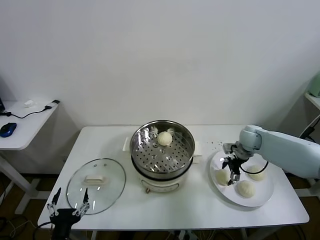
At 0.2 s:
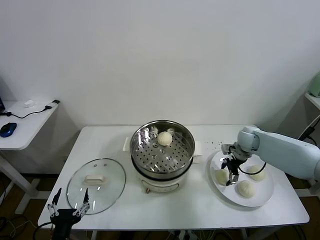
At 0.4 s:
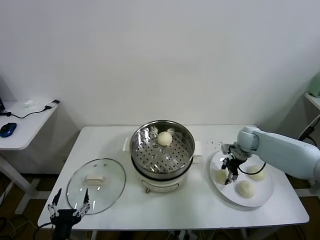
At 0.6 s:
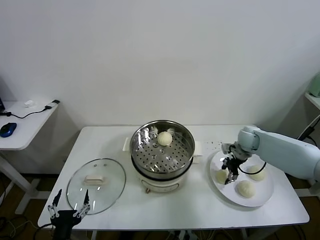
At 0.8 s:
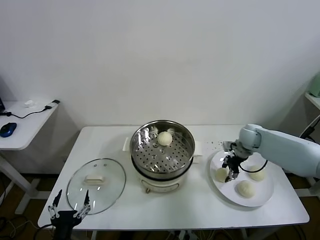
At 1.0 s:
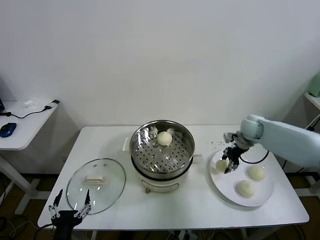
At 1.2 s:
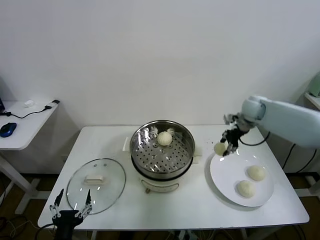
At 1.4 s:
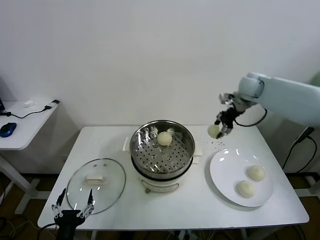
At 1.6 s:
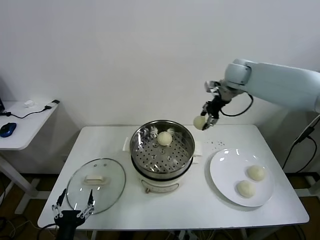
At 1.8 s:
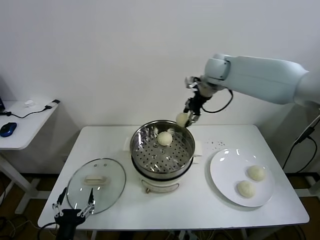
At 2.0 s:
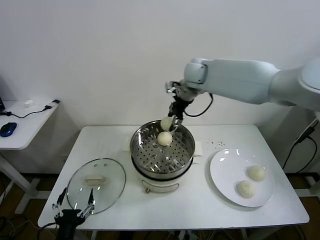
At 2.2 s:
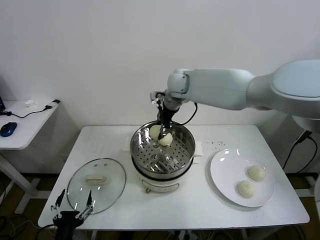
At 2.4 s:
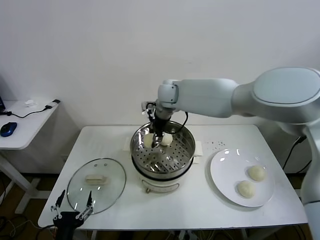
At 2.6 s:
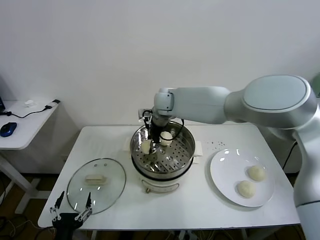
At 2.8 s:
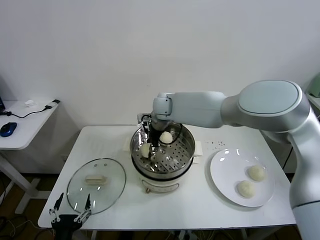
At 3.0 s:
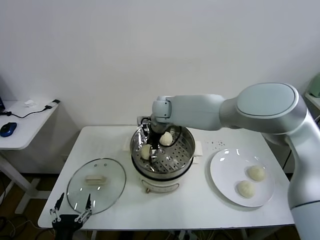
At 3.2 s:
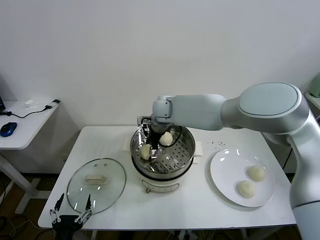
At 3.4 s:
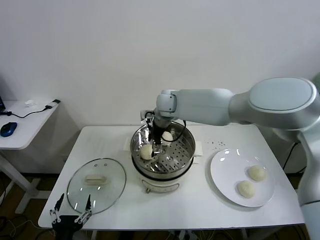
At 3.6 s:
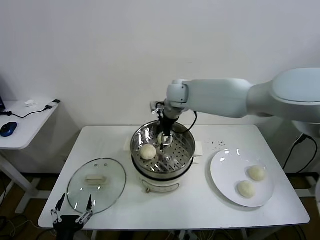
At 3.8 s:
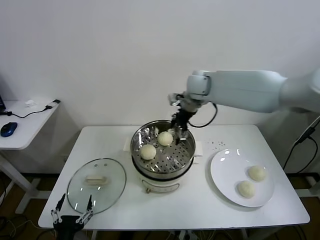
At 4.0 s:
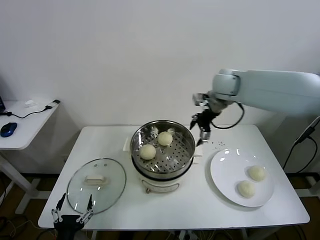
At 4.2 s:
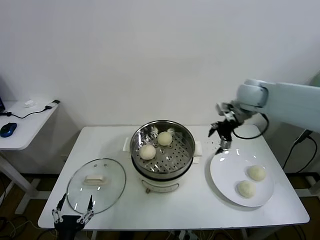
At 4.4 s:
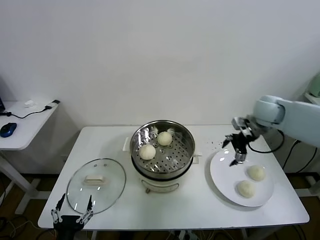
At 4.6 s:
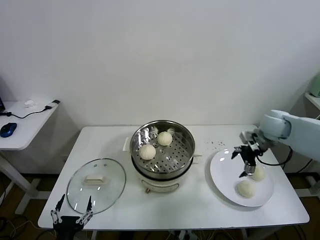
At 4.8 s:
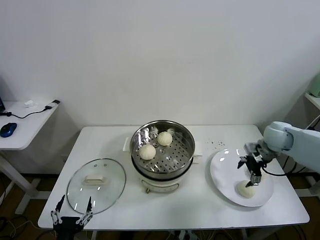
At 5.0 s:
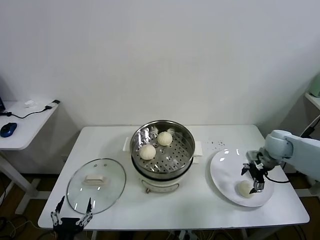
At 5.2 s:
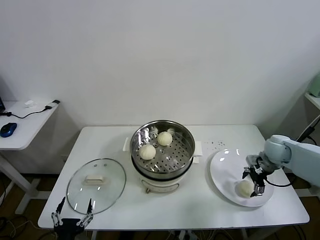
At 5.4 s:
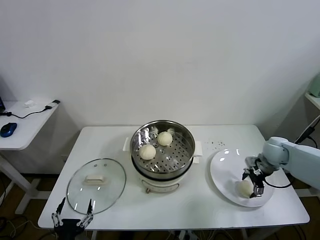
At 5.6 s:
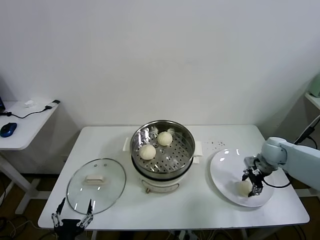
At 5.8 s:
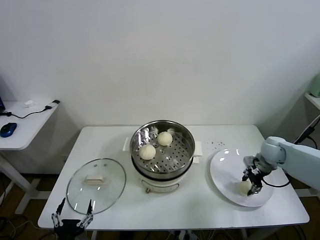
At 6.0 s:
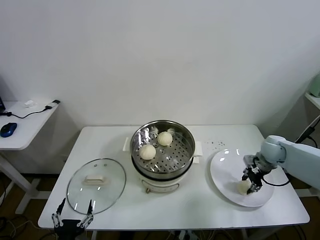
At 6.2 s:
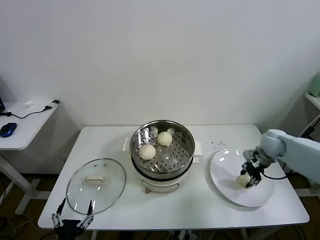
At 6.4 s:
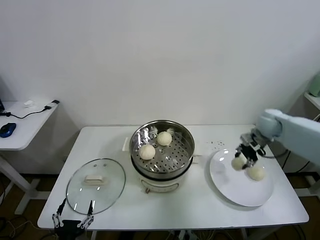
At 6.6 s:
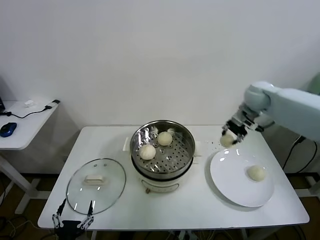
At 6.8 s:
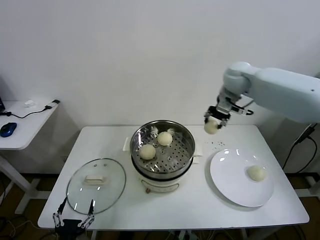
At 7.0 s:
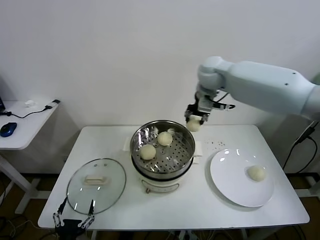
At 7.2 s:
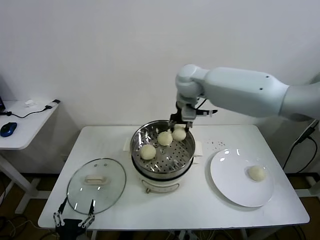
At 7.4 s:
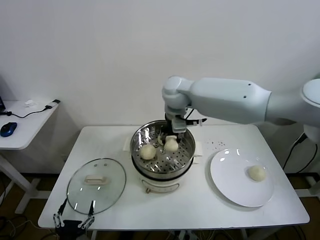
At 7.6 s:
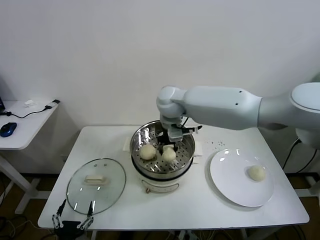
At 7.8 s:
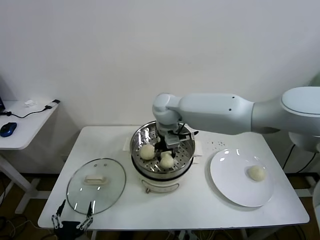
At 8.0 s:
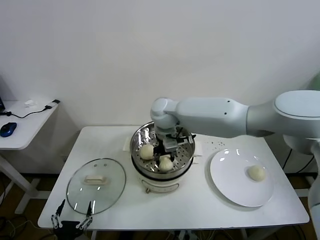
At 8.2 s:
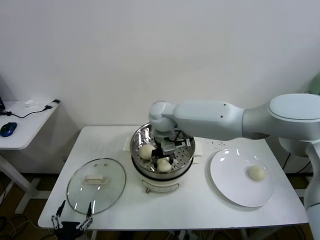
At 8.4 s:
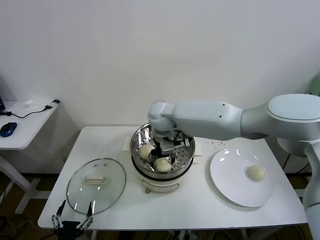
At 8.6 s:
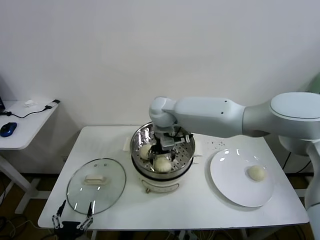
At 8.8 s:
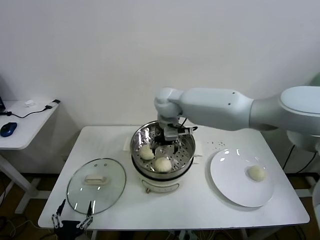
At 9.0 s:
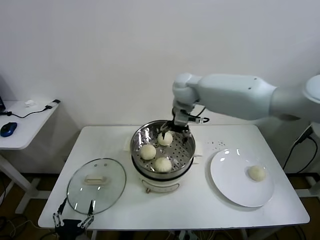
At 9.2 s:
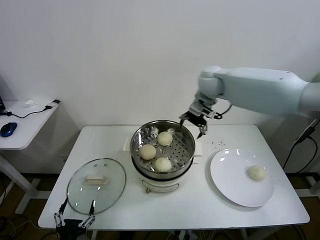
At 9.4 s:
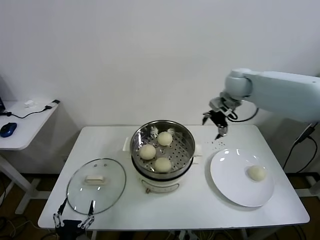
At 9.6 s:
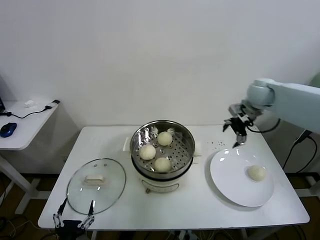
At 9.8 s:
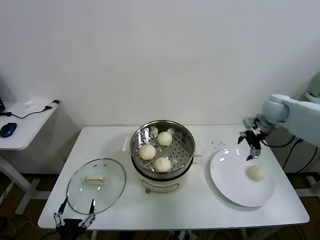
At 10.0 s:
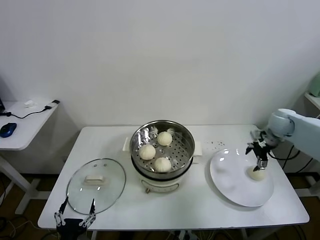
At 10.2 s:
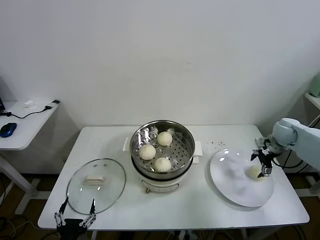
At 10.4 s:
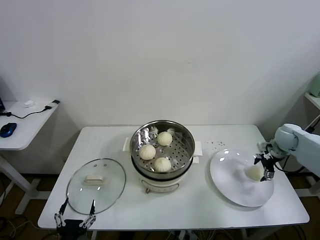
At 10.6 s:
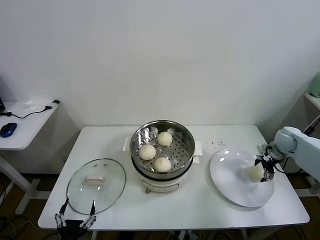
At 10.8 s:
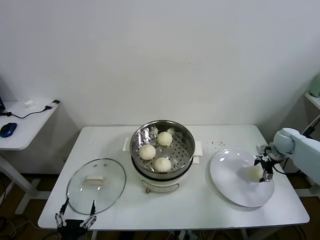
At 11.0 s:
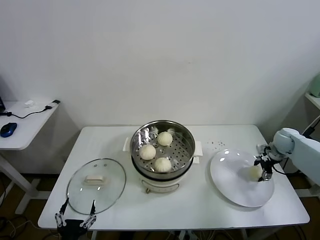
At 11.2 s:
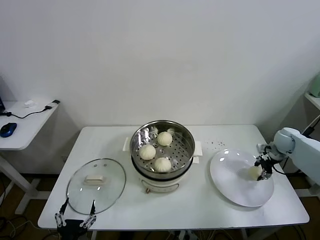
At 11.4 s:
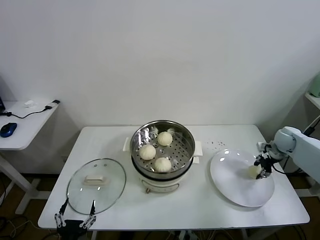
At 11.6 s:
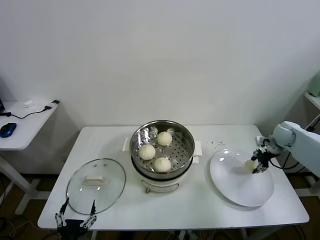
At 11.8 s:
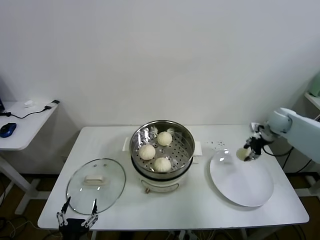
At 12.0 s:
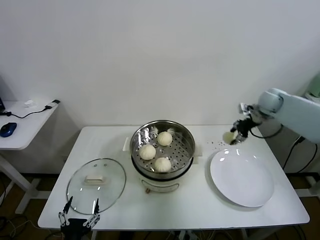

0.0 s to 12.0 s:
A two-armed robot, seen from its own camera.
Task of the whole recording: take steamed baozi put them in steamer.
Step, 0.8 to 3.4 s: Place the baozi on the steamer with right gripper.
Step, 3.6 to 5.8 s: Grasp the baozi in the plate with right gripper.
Step, 6.0 to 8.6 s: Place the baozi on the steamer with right gripper.
Step, 8.8 to 11.2 s: Grasp the baozi in the plate with right gripper.
0.0 to 1.6 s: The right gripper is displaced upward and to the left by some 30 cm, and closes.
1.6 to 3.0 s: The right gripper goes about 25 cm to the left and downward, and opens its fingers.
3.0 to 4.4 s: The right gripper heads to the right, covering roughly 35 cm.
4.4 to 6.0 s: The right gripper shifts some 15 cm downward and to the right, and closes.
6.0 to 7.6 s: The right gripper travels to the left and upward by approximately 40 cm.
7.6 to 9.0 s: The right gripper heads to the right, covering some 5 cm, and opens up.
9.0 to 10.4 s: The right gripper heads to the right and downward, covering roughly 40 cm.
10.4 to 12.0 s: The right gripper shifts about 15 cm upward, forward and to the left, and closes up.

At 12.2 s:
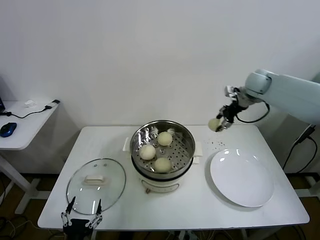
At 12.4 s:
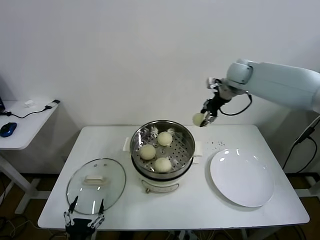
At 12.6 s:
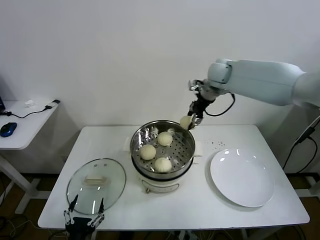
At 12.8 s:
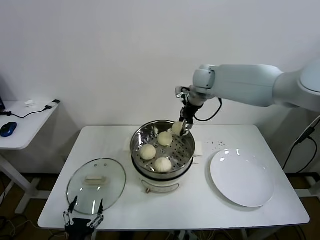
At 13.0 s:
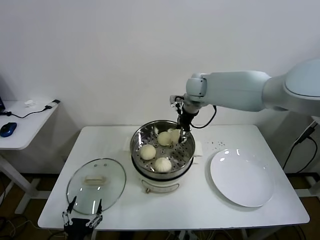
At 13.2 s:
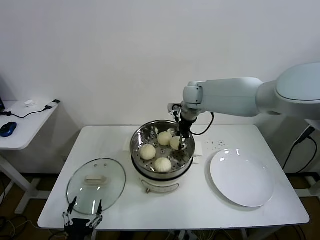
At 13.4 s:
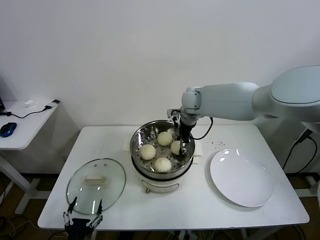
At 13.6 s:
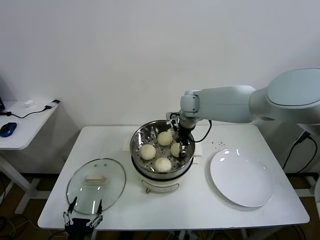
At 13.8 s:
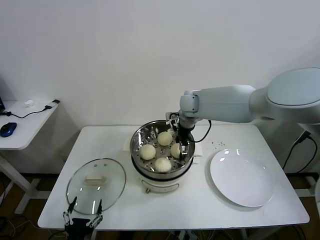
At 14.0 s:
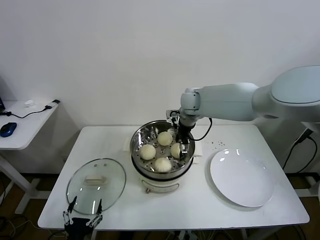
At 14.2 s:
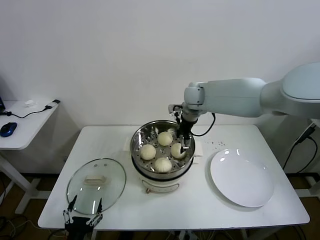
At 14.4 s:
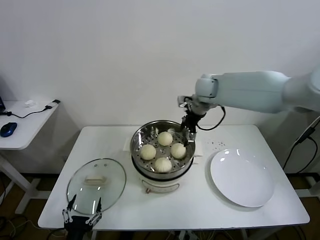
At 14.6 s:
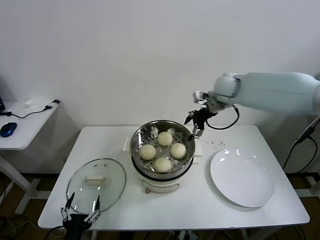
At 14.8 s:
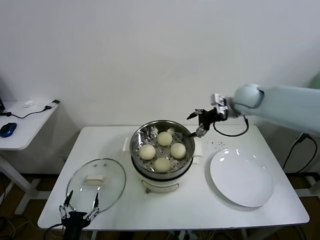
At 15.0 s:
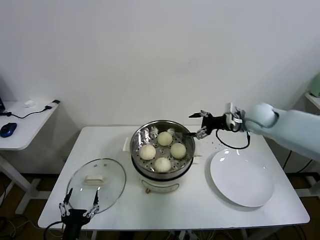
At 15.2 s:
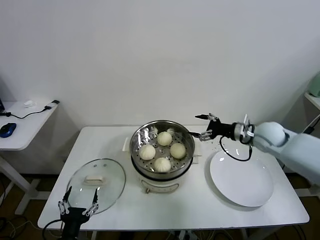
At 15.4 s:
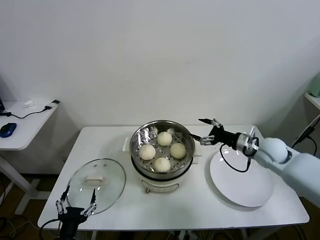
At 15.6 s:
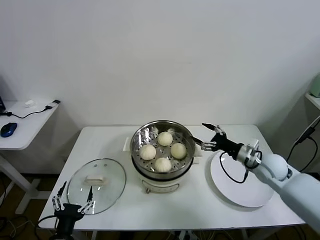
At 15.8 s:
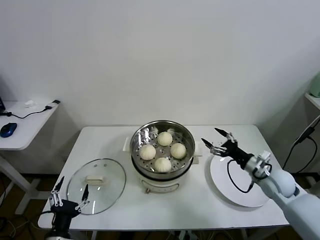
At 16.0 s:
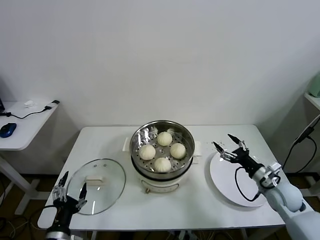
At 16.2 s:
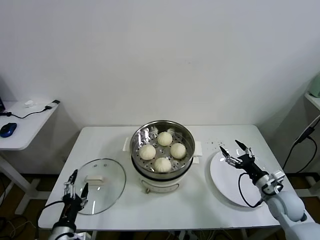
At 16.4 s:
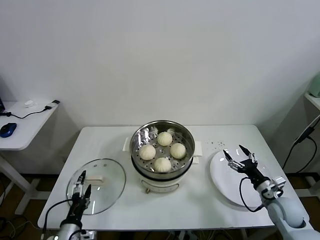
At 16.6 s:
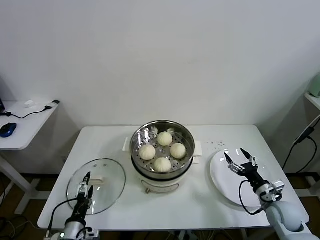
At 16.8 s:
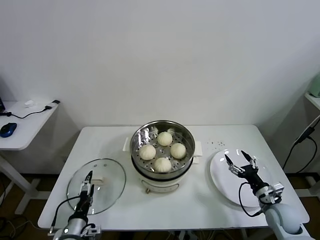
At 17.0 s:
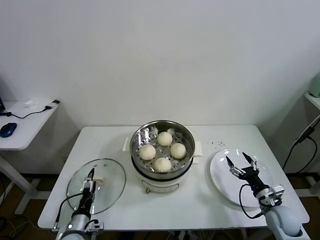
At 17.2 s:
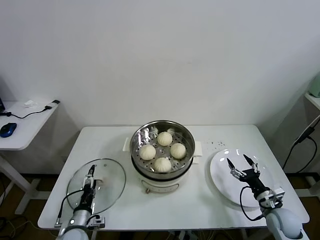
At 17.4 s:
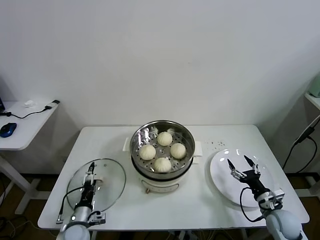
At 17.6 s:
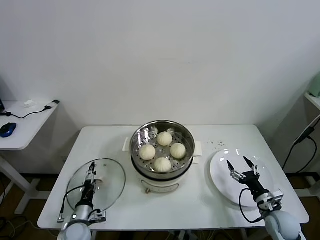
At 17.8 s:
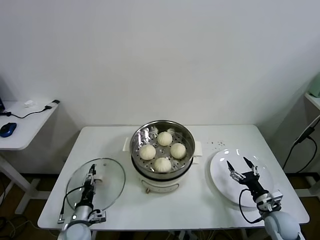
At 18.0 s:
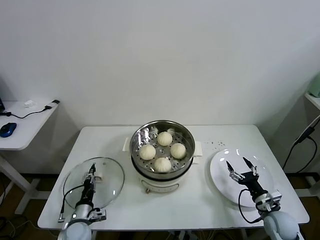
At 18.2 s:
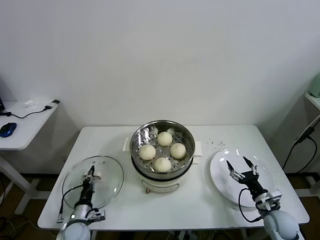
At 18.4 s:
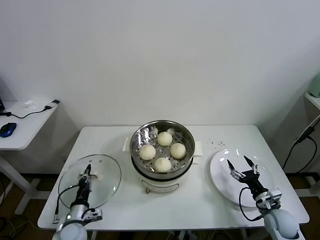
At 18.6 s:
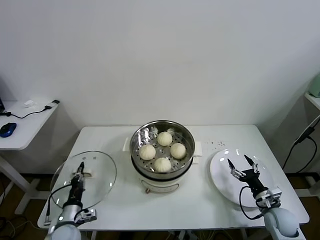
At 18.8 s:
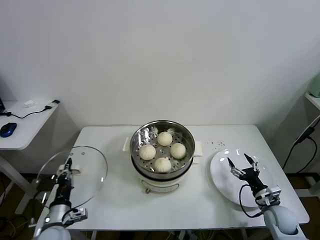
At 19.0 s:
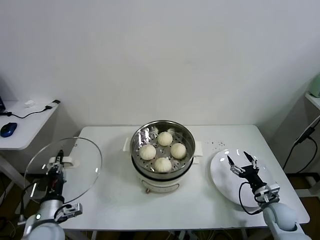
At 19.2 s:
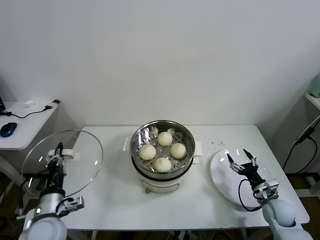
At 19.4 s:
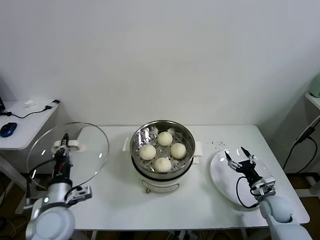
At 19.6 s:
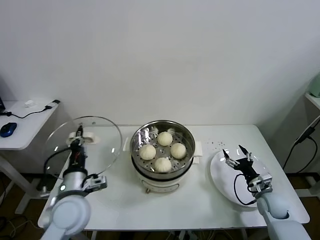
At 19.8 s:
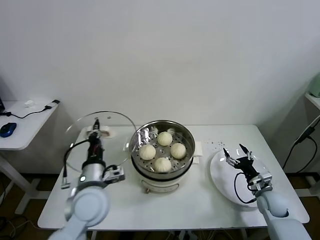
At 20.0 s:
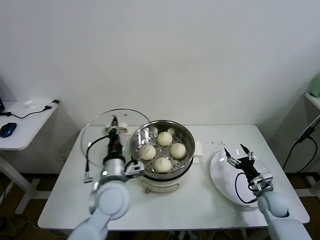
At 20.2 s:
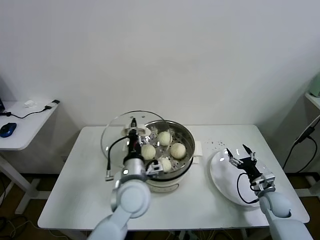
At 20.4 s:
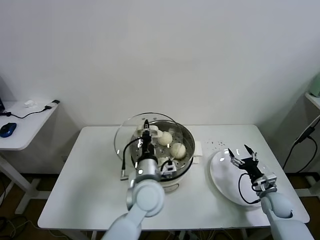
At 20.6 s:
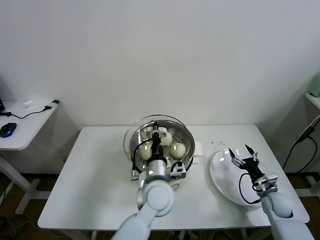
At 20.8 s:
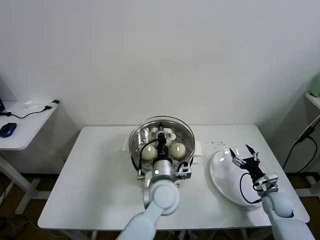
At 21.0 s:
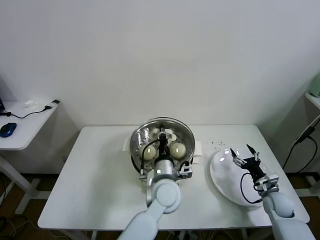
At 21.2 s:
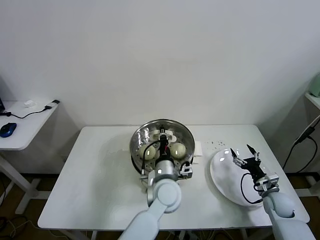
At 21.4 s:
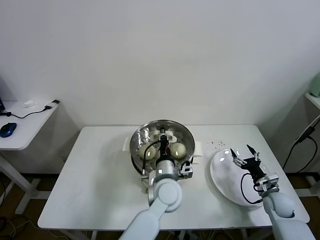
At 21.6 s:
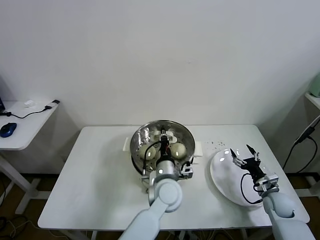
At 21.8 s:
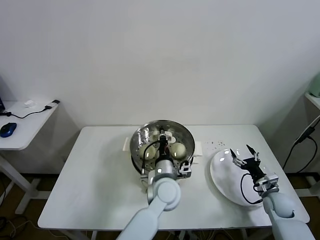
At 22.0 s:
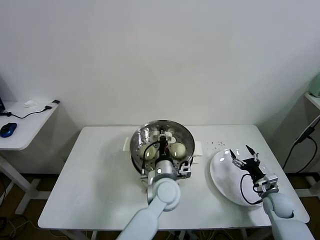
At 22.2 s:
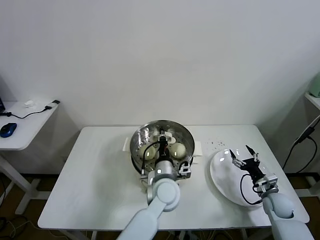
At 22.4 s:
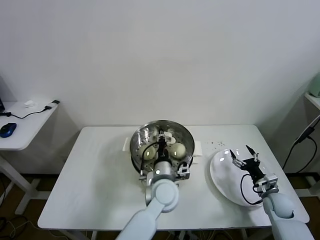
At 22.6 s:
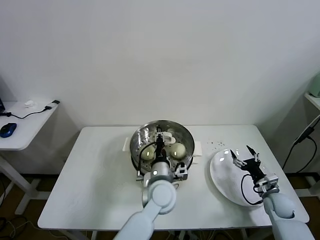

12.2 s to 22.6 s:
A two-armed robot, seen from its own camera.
Task of the whole recording: take steamed baozi put them in steamer.
Step, 12.2 to 14.0 s: Place the baozi on the steamer with right gripper.
Step, 14.2 to 18.2 s: Grasp the pot lid with left gripper.
12.2 to 13.6 s: The right gripper travels to the left by approximately 25 cm.
13.6 to 15.2 s: The right gripper goes some 25 cm to the right and backward, and opens up.
15.2 to 16.6 s: The left gripper shifts about 5 cm forward, while the right gripper moves downward and backward, approximately 25 cm.
16.6 to 18.2 s: The left gripper travels forward and downward by some 10 cm, and closes its fingers.
18.2 to 19.6 s: The right gripper is displaced forward by some 5 cm; the left gripper moves upward, about 20 cm.
19.6 to 21.2 s: The left gripper is displaced to the right by roughly 25 cm.
21.2 to 22.6 s: The grippers move only a little.
